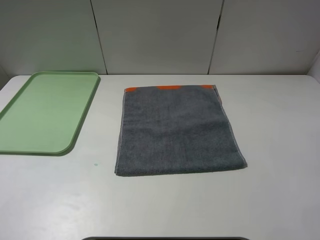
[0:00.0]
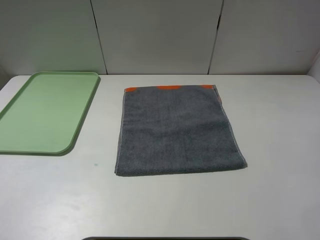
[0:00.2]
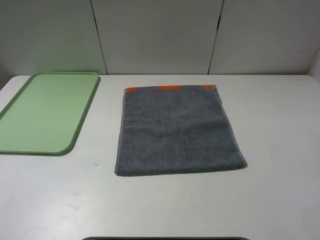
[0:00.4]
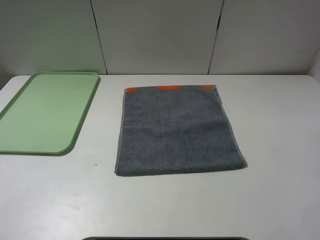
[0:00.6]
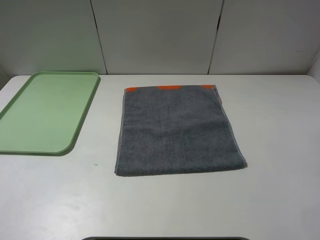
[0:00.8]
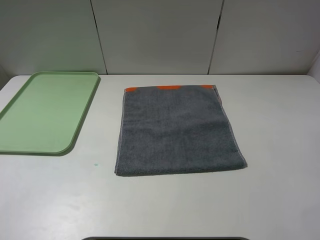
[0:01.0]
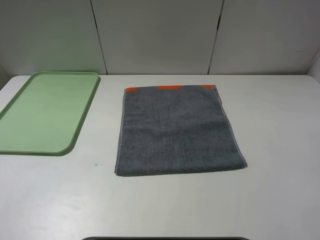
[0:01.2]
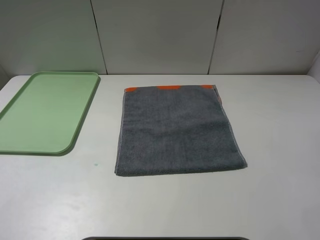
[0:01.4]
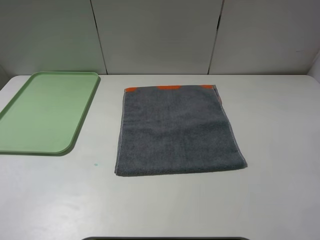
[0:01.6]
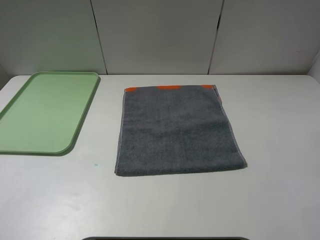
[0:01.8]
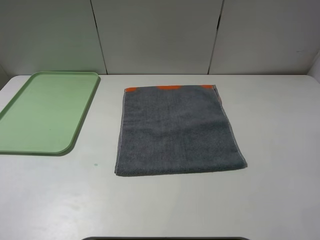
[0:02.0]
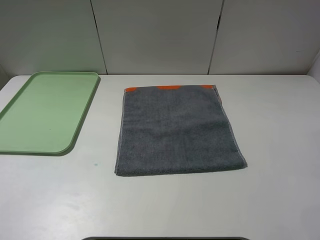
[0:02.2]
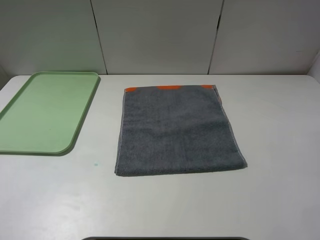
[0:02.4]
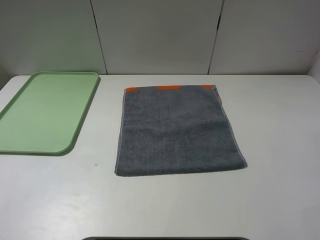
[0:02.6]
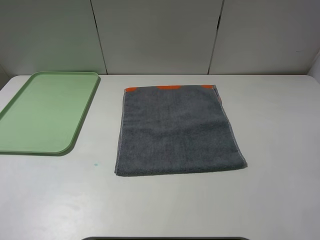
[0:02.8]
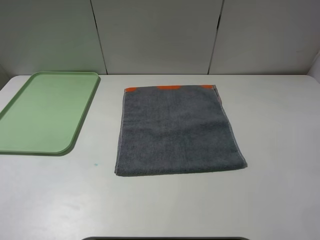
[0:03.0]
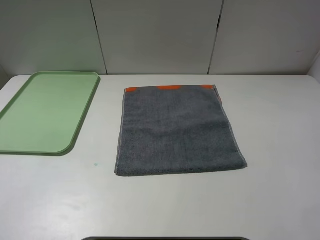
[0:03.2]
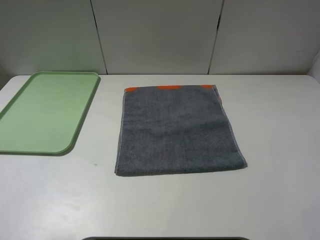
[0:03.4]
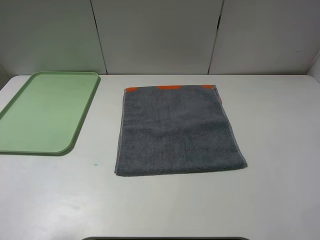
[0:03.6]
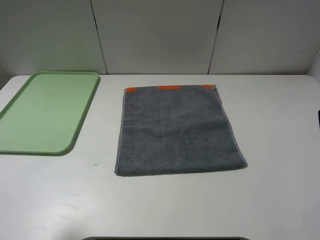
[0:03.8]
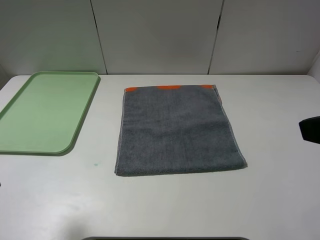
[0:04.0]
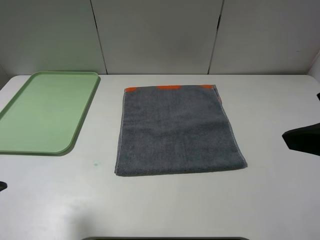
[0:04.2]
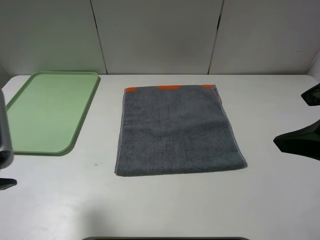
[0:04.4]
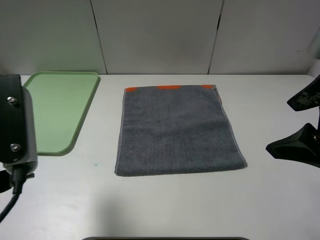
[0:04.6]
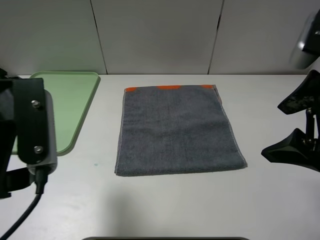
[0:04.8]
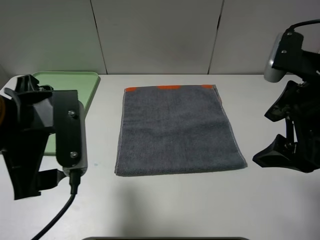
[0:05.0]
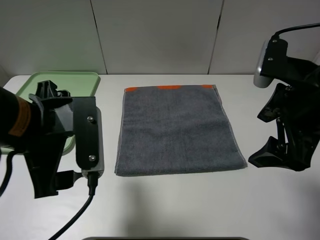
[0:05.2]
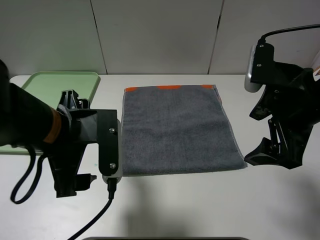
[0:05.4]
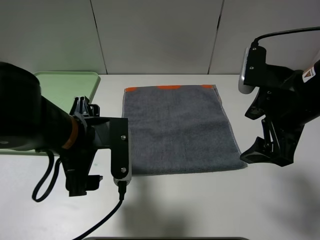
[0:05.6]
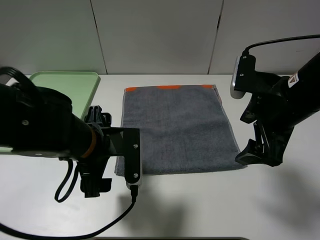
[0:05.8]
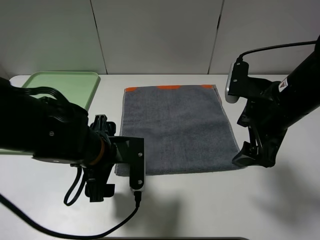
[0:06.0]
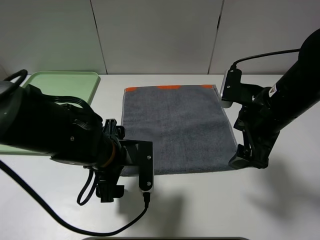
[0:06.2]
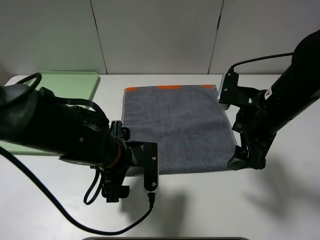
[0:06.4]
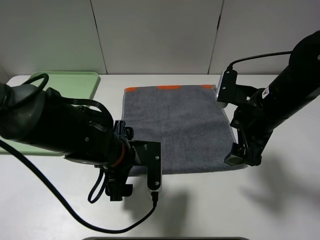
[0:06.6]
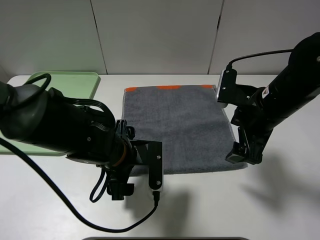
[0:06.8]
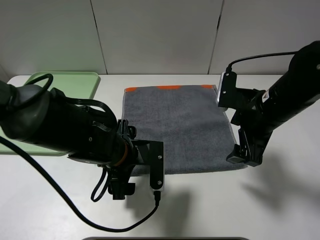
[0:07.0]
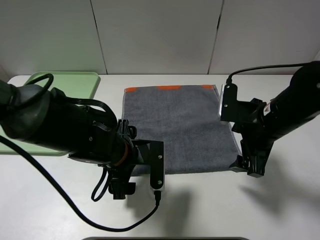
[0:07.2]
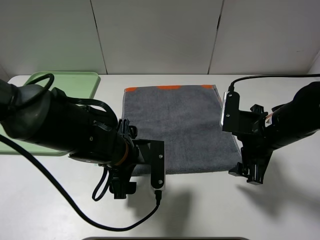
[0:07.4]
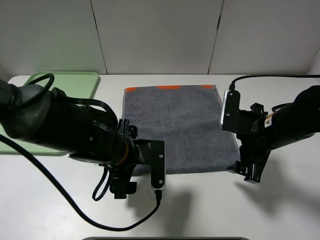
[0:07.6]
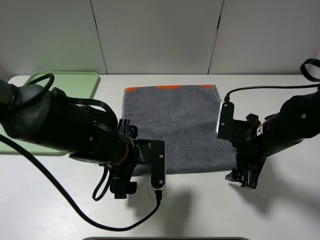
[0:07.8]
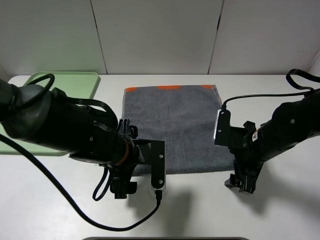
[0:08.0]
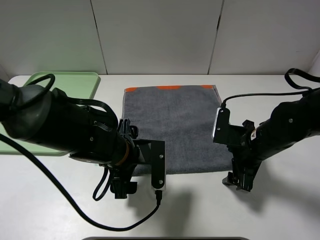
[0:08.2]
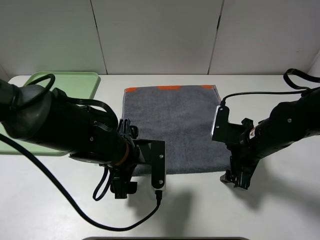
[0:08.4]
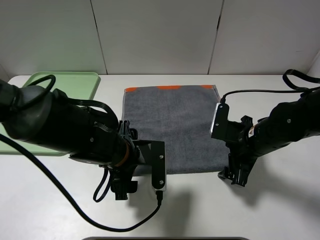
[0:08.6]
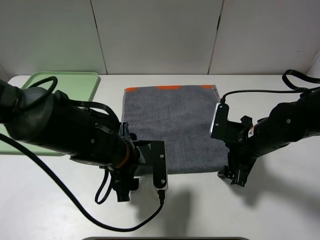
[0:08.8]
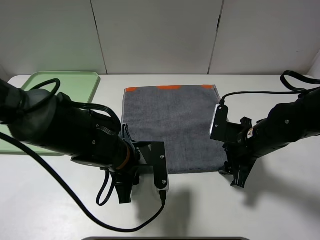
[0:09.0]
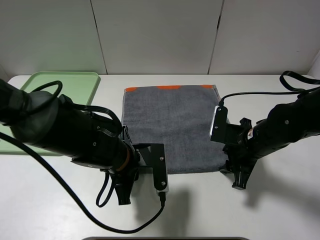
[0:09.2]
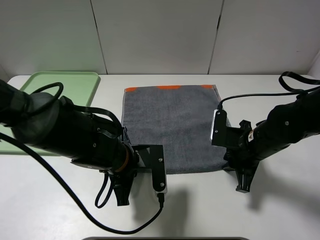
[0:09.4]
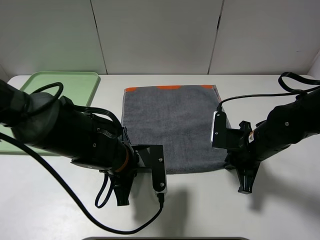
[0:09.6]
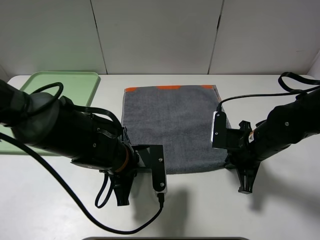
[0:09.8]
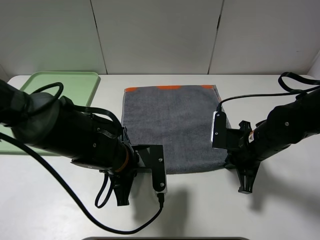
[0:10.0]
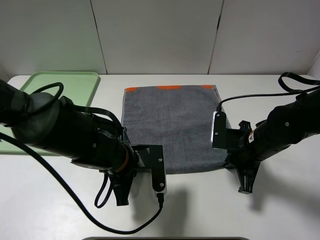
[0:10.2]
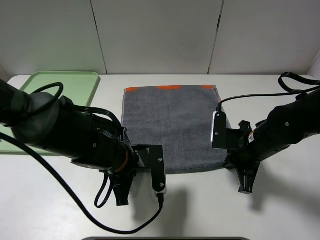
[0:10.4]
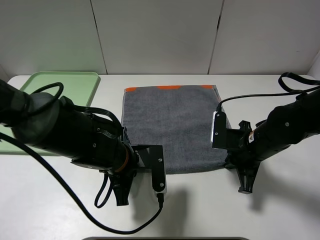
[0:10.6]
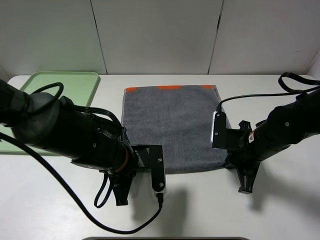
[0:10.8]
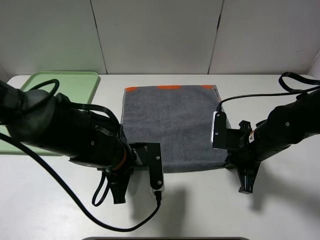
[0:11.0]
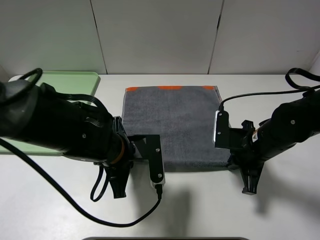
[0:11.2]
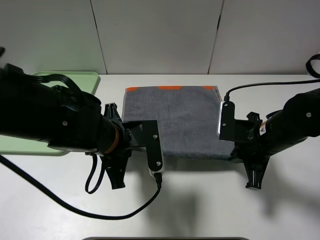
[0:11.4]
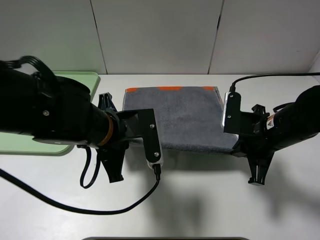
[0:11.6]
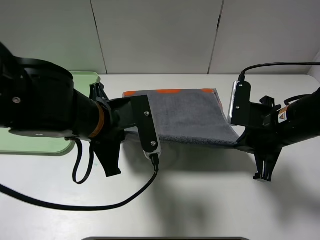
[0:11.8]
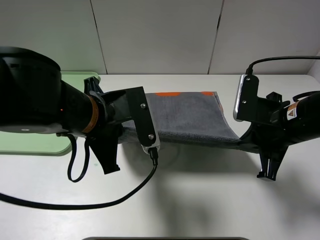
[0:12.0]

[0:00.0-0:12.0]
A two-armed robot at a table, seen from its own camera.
0:00.0 to 0:01.6: The two grippers keep their place.
0:03.0 to 0:04.4: The right gripper goes about 15 cm forward and to the left. The left gripper goes about 10 cm forward and to the right.
0:04.4 to 0:06.0: The left gripper goes some 20 cm downward, to the right and forward, while the right gripper heads downward and forward, covering approximately 15 cm.
0:06.0 to 0:07.6: The right gripper moves downward, some 5 cm.
0:07.6 to 0:09.0: The left gripper closes up; the right gripper shifts approximately 5 cm downward.
0:09.0 to 0:10.4: The right gripper closes its fingers; the left gripper closes.
0:10.4 to 0:12.0: The two grippers go approximately 10 cm upward.

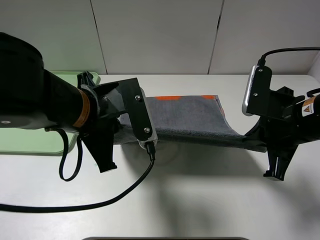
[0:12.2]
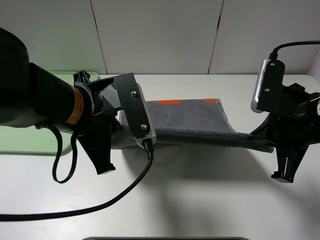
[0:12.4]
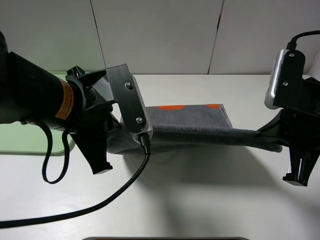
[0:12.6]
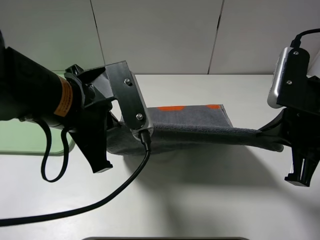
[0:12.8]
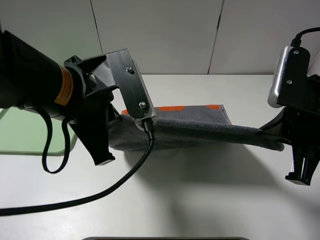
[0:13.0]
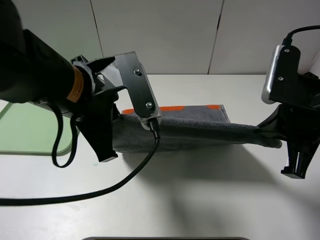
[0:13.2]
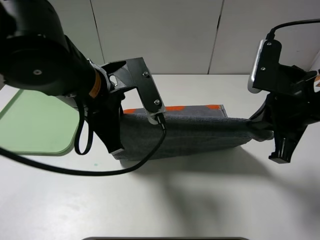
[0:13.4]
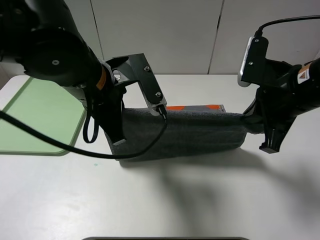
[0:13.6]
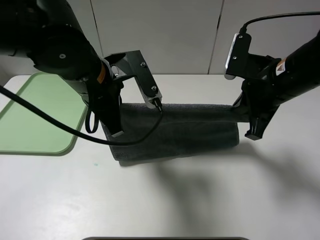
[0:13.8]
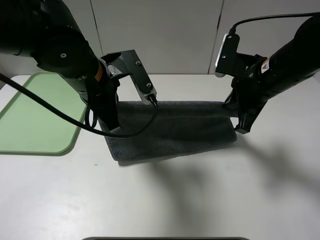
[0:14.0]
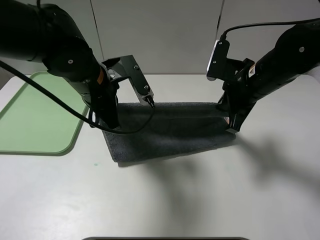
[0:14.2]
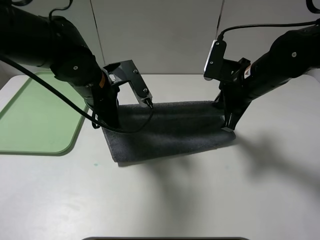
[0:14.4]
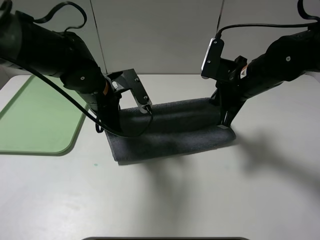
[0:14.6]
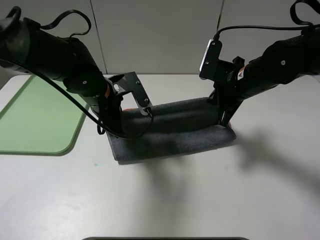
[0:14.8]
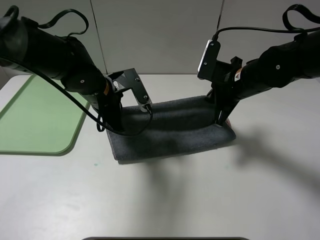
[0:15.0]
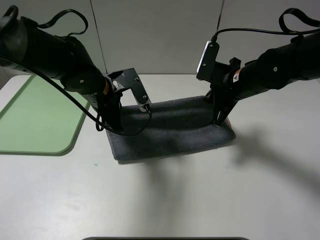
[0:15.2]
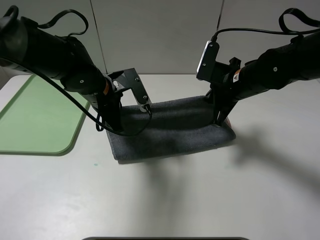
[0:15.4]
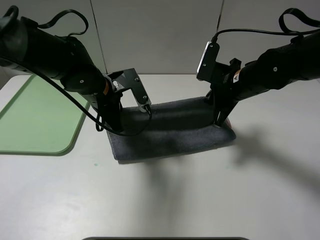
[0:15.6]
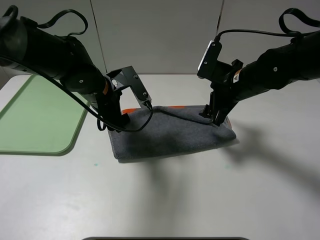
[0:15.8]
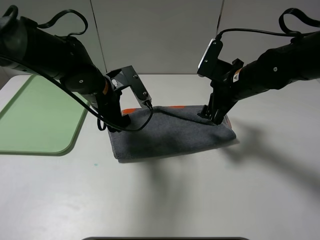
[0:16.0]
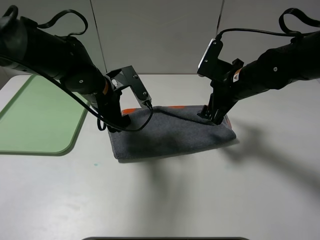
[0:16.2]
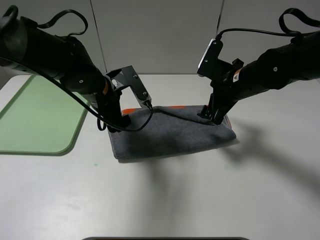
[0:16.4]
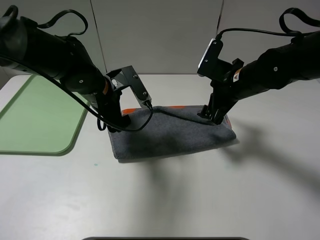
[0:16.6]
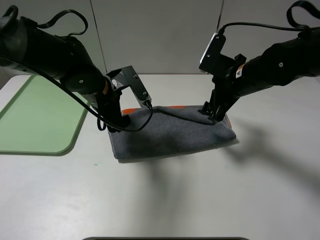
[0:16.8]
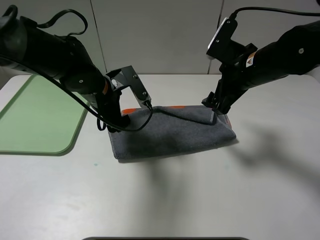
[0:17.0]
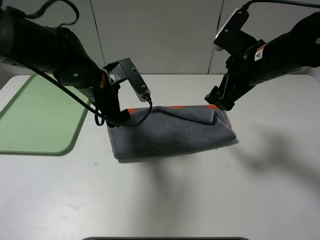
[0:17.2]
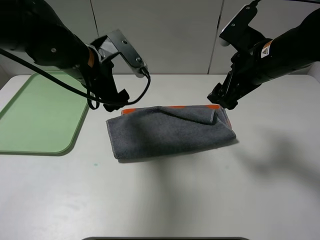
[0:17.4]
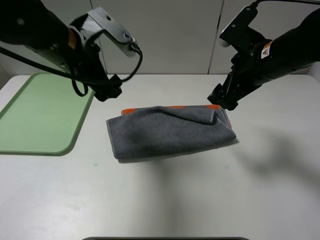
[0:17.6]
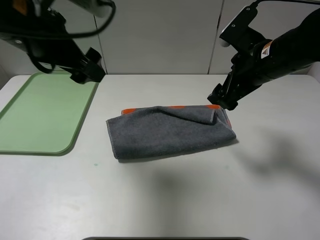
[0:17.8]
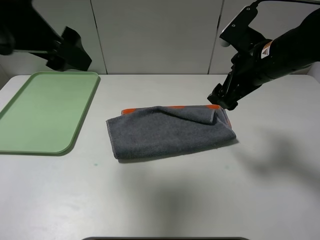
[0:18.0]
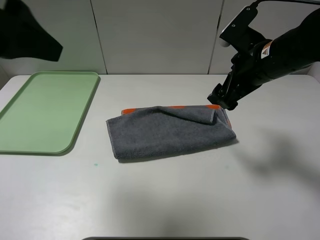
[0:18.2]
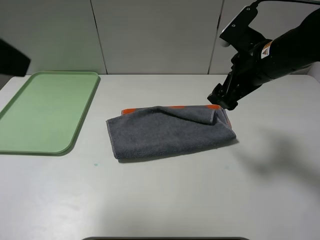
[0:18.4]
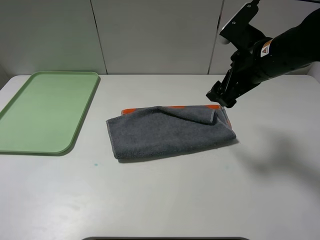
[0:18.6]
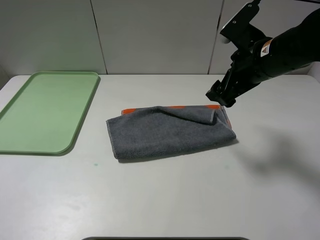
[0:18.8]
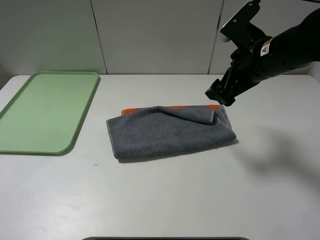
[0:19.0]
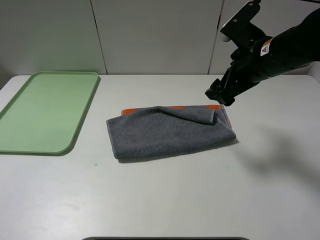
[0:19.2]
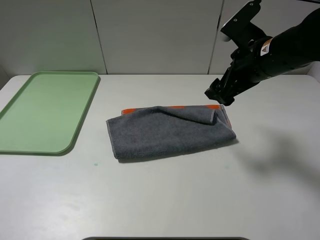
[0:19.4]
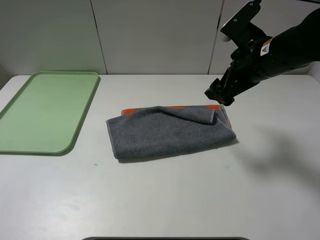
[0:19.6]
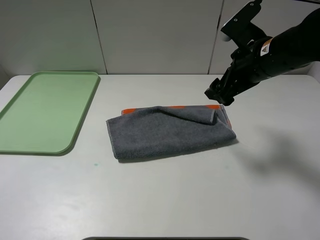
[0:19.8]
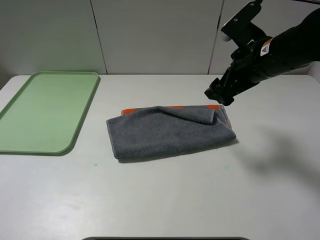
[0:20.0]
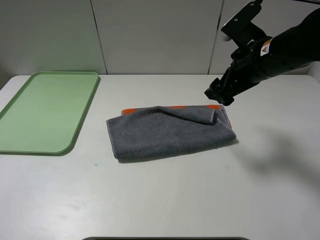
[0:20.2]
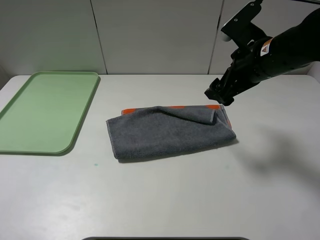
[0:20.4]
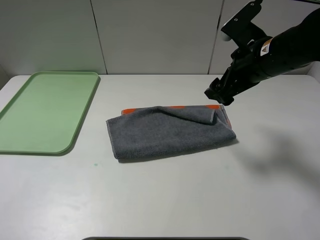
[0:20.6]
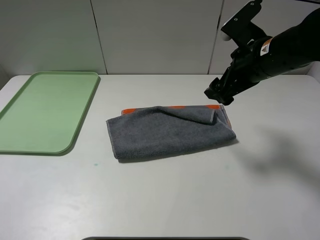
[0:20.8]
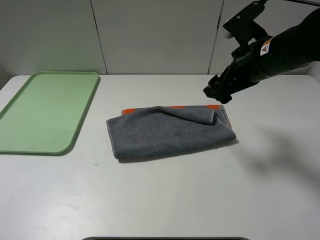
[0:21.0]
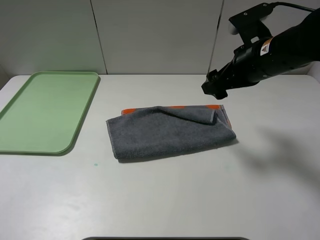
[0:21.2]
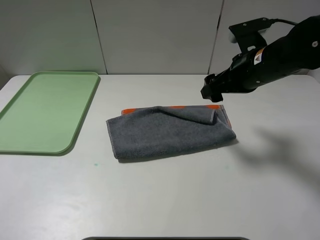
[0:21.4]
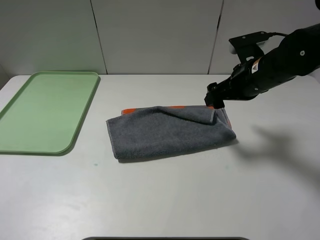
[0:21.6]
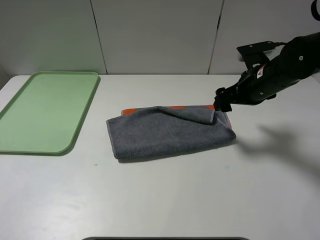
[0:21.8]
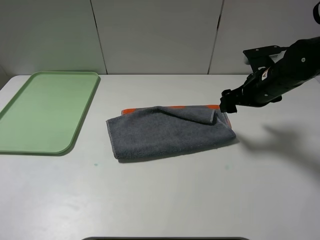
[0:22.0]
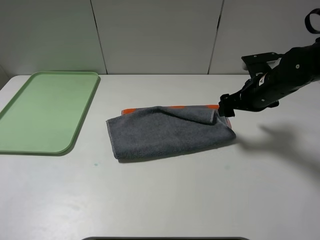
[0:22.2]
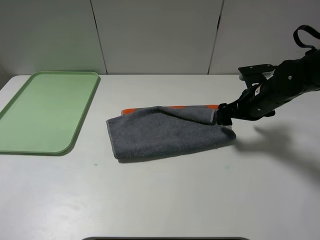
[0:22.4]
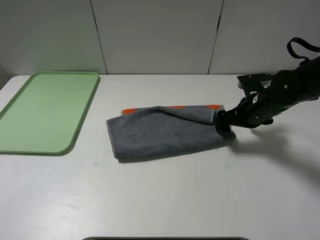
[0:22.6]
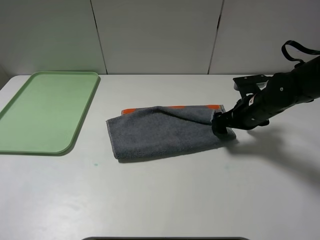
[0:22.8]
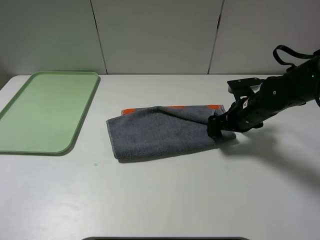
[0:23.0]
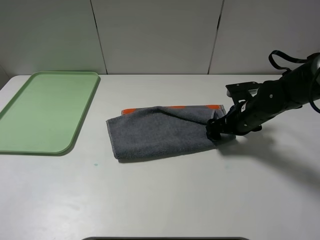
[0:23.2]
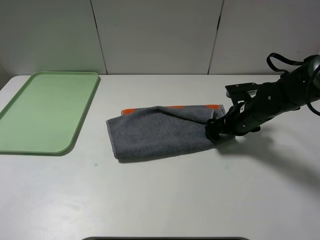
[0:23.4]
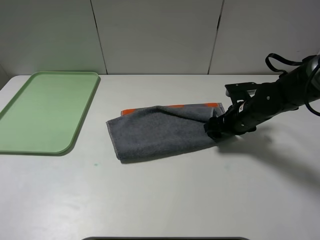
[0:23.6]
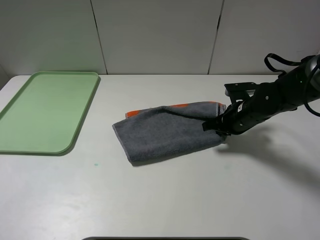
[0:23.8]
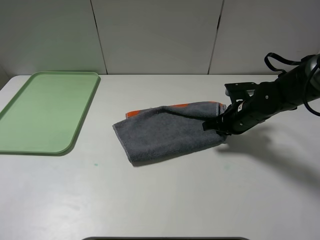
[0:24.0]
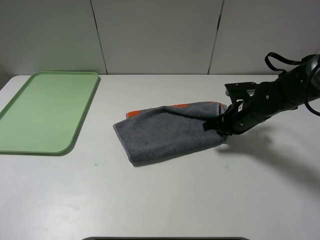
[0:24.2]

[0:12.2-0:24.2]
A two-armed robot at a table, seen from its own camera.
Step, 0:12.2 to 0:16.8: Fold the grey towel upwards.
0:12.2 to 0:13.8: Both grippers move forward, about 5 cm.
0:13.8 to 0:15.2: The right gripper is displaced forward and downward by some 10 cm, while the left gripper is displaced downward and forward by about 10 cm.
0:15.2 to 0:16.6: The left gripper opens its fingers. Meanwhile the right gripper opens its fingers.
0:16.6 to 0:18.2: The left gripper shifts roughly 30 cm upward, backward and to the left, while the right gripper is displaced upward by about 5 cm.
0:18.2 to 0:19.8: The left gripper goes approximately 20 cm backward, downward and to the left.
0:21.2 to 0:22.6: The right gripper moves downward, some 15 cm.
0:22.6 to 0:24.2: The right gripper closes.
